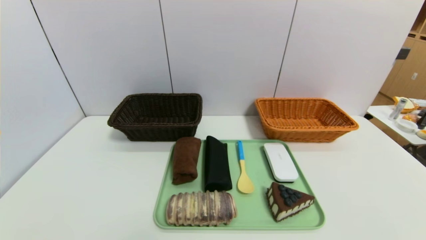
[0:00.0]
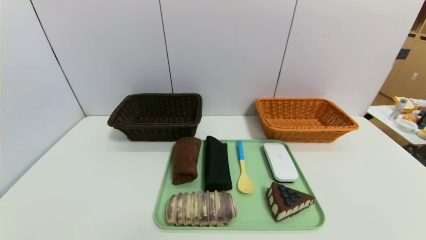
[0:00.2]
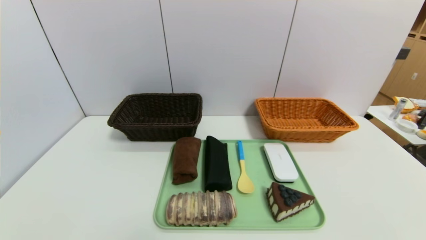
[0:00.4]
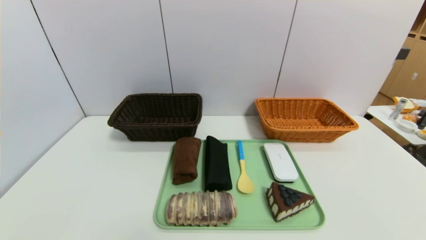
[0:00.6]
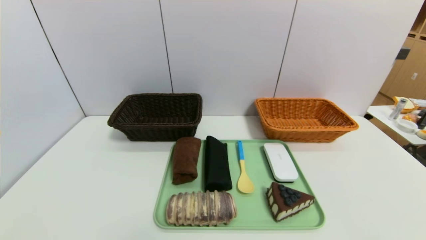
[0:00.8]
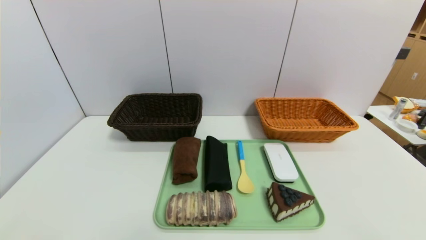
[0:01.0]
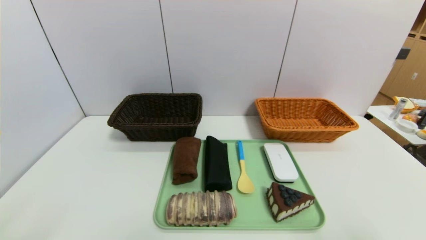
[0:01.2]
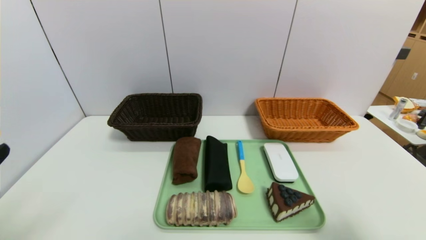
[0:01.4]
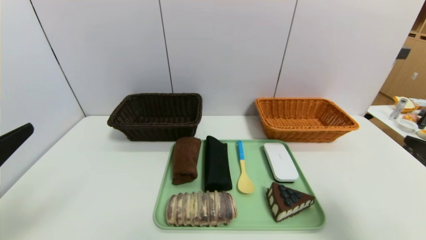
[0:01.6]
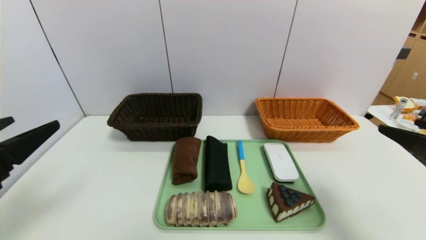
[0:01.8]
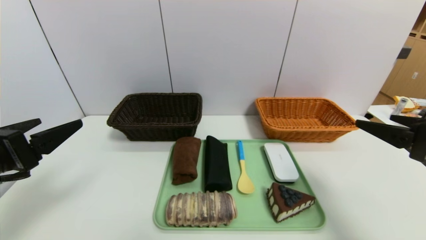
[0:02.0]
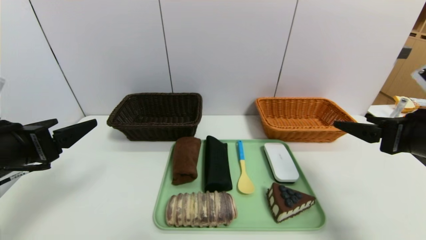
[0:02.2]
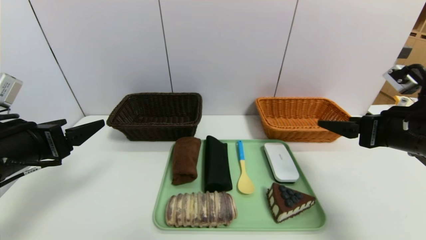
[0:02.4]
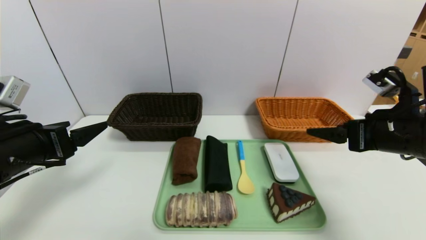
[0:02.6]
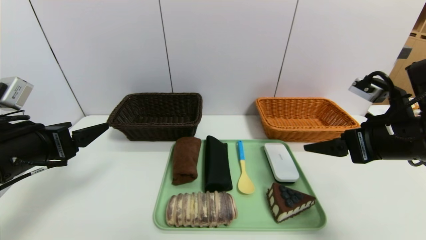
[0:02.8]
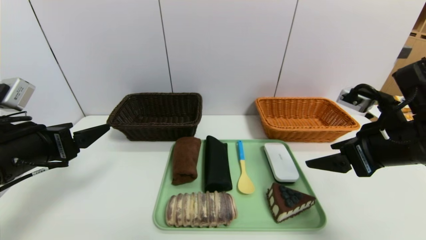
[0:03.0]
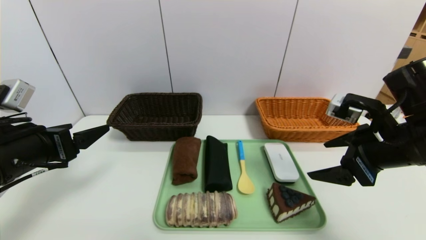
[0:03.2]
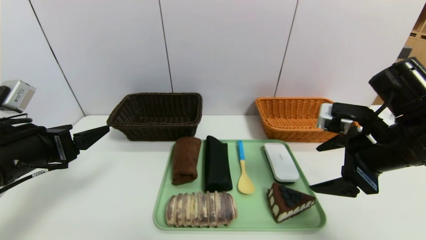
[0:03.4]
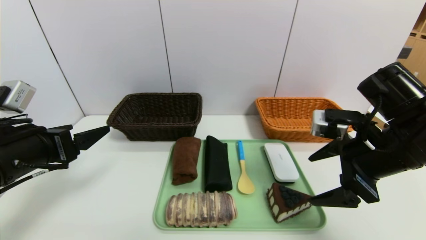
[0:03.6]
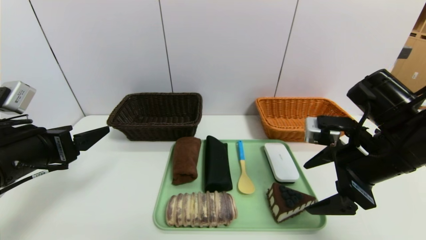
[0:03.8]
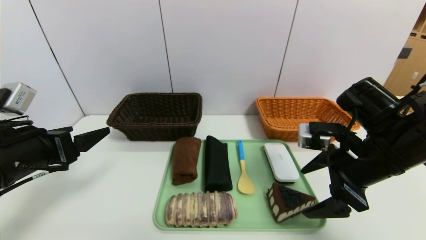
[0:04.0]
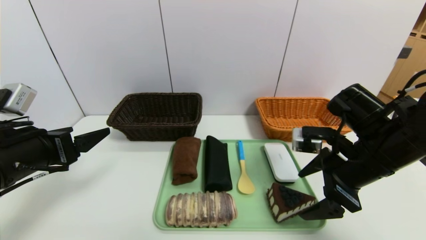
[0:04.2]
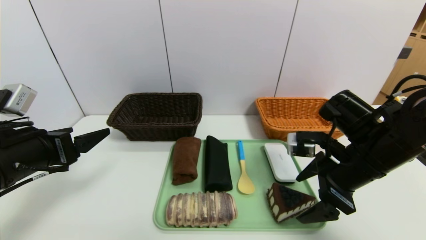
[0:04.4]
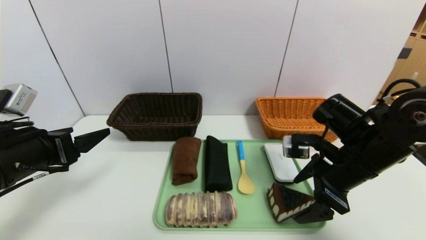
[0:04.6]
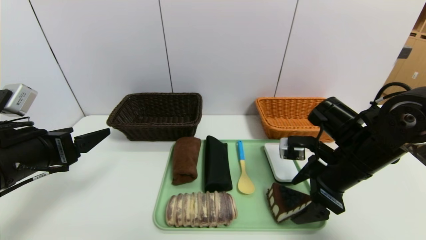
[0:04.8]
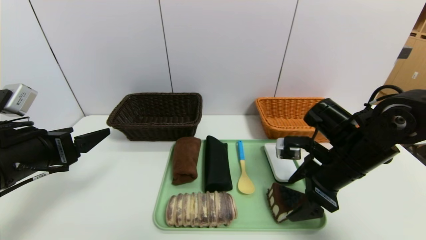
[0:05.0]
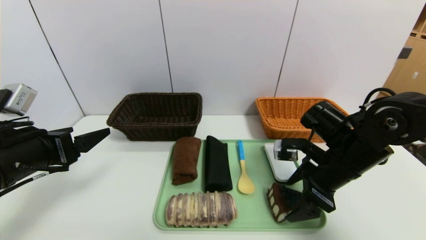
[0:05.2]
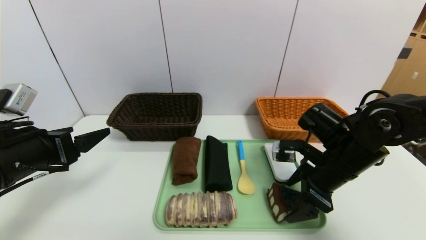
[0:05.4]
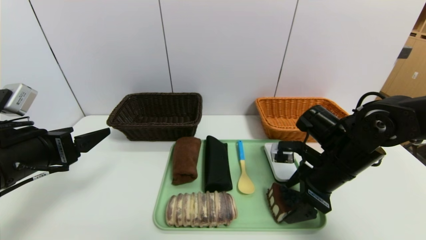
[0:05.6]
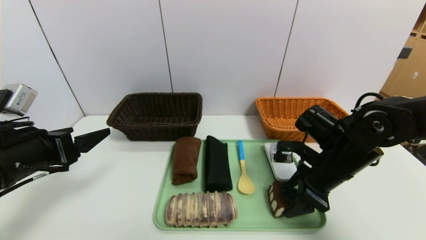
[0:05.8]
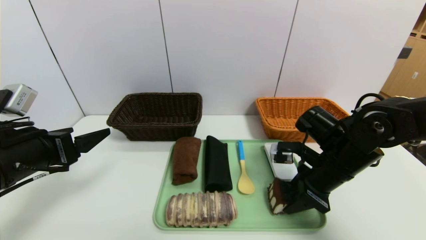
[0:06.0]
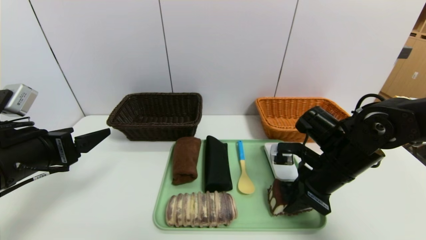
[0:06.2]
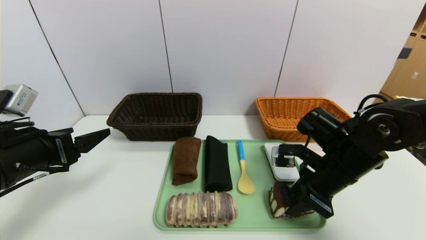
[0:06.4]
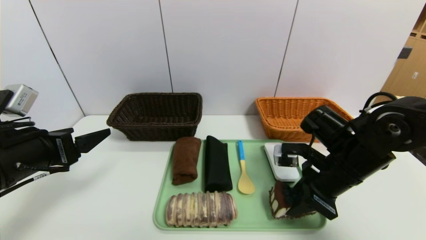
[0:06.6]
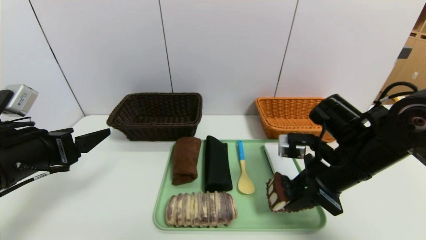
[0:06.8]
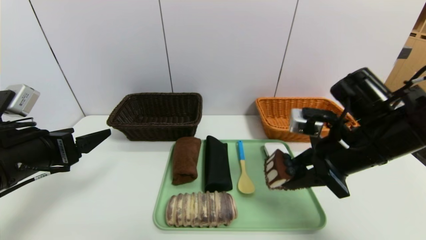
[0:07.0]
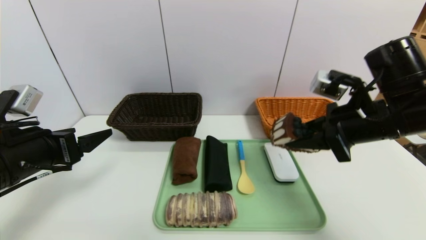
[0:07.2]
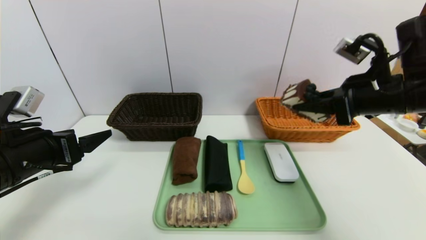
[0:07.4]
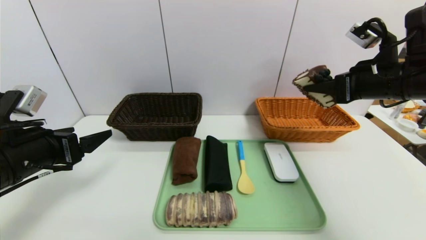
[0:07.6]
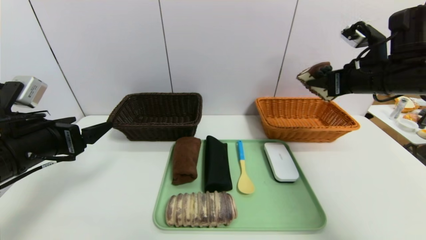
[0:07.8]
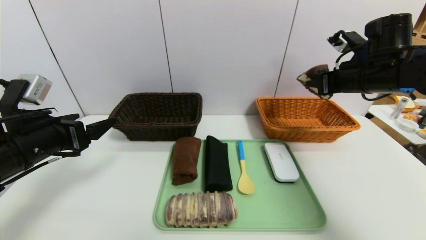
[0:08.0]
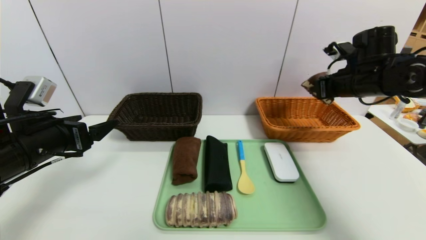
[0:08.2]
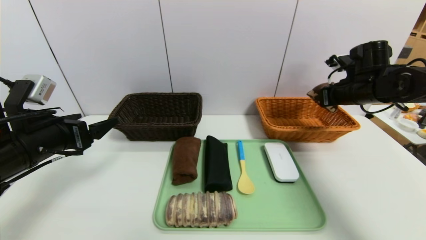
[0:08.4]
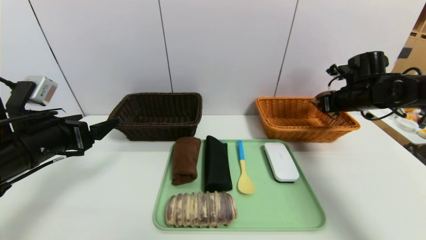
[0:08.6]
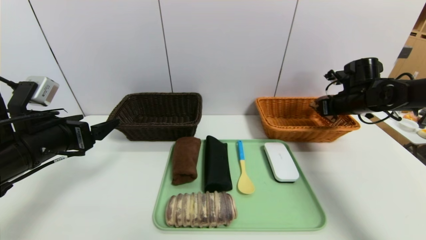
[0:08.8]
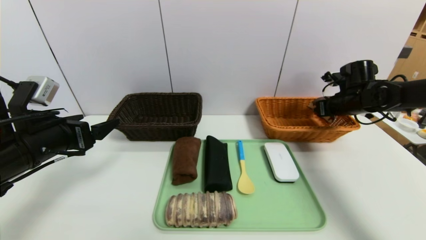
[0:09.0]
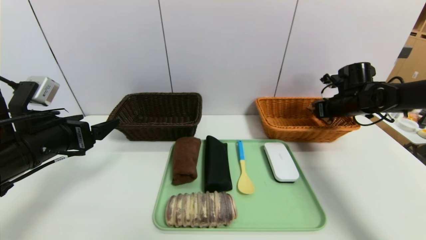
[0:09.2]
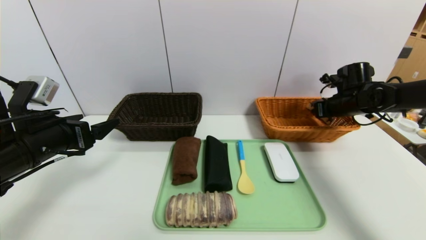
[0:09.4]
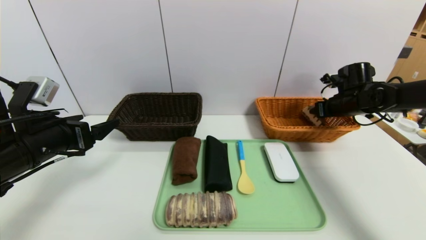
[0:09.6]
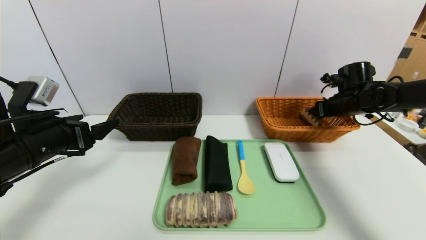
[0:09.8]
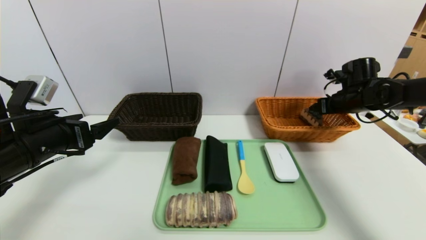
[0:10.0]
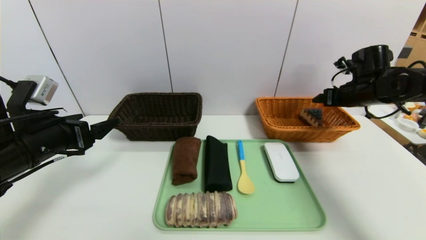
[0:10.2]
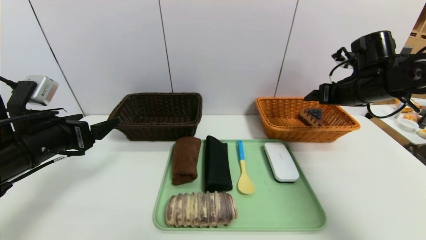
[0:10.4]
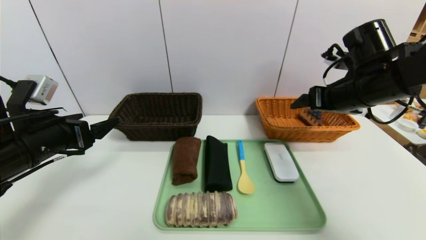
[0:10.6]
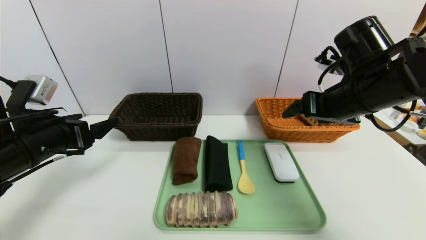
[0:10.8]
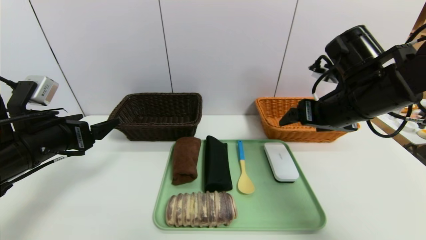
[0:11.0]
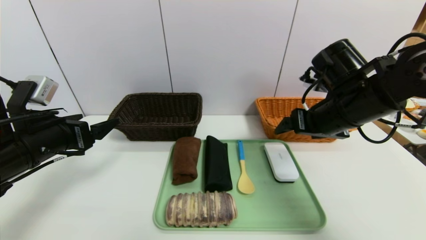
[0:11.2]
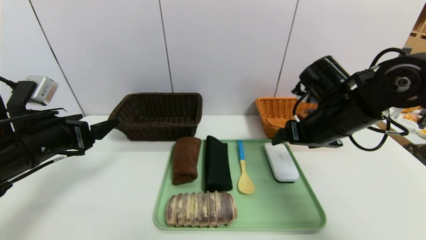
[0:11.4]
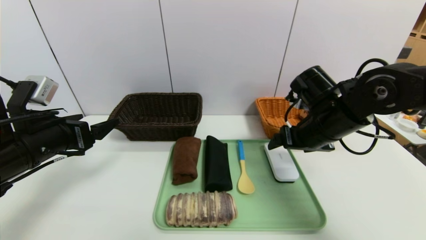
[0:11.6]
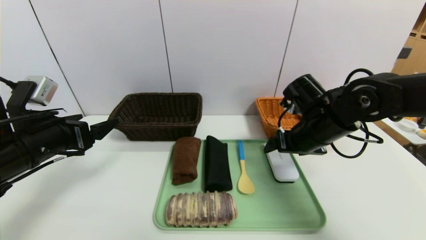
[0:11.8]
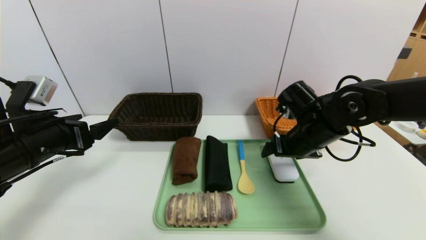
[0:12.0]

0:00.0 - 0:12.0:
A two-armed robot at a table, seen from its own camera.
Task of the whole recording: place the food in the right basket with the right gripper, and place the non food items in the left basket with the left gripper.
Step, 0:00.0 - 0:10.0: Grasp the triangle cake and put it in the right basket.
0:00.0 - 0:01.6: The grippers both shift upward and forward by roughly 20 cm.
0:01.6 - 0:03.0: The left gripper travels forward by about 10 cm. The right gripper moves forward and to the left, roughly 15 cm.
0:03.0 - 0:04.4: The right gripper shifts by roughly 5 cm.
0:04.4 - 0:06.0: The right gripper closes.
0:06.0 - 0:07.6: The right gripper travels upward and to the right by about 15 cm.
0:07.6 - 0:09.0: The right gripper travels forward, downward and to the right by approximately 20 cm.
0:09.0 - 0:10.4: The right gripper goes about 10 cm backward, upward and to the left, and opens up.
0:10.4 - 0:12.0: The right gripper heads to the left and downward, covering some 15 cm.

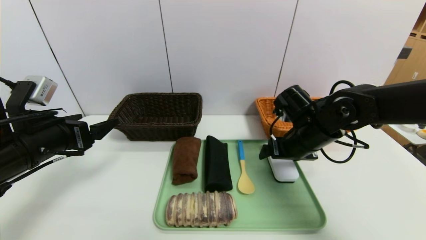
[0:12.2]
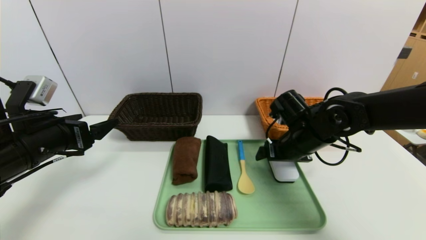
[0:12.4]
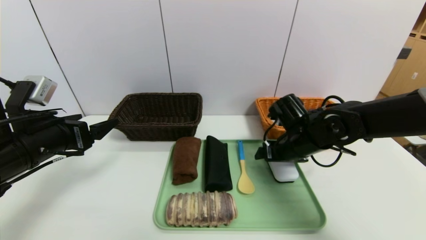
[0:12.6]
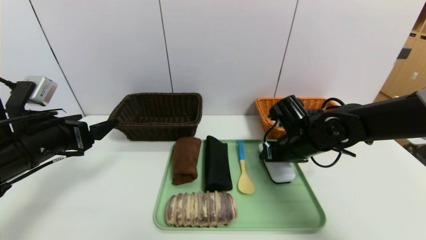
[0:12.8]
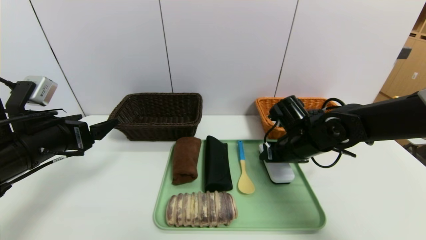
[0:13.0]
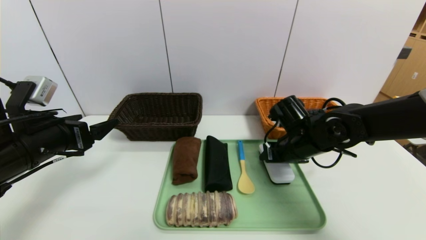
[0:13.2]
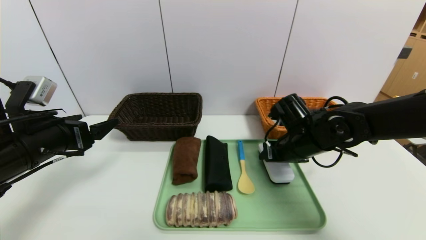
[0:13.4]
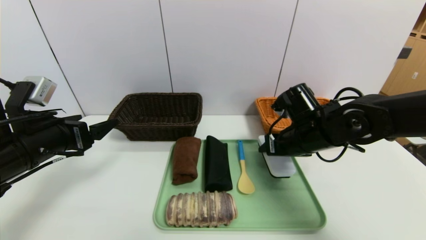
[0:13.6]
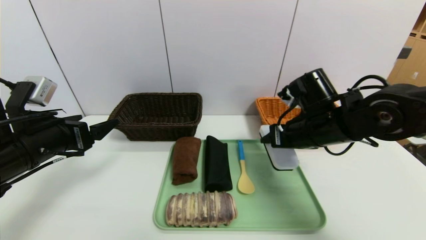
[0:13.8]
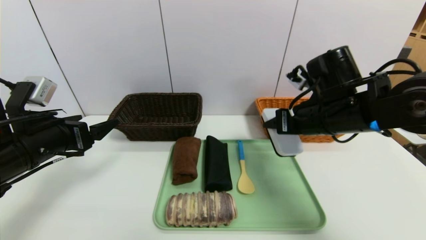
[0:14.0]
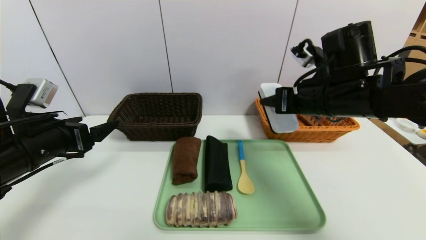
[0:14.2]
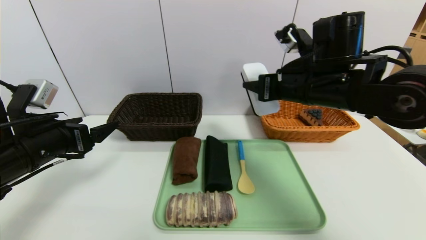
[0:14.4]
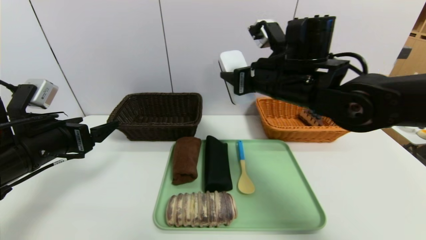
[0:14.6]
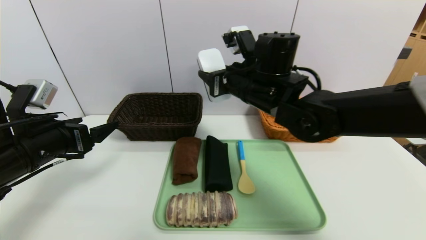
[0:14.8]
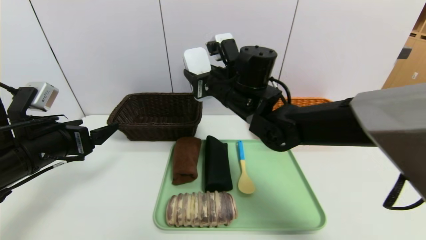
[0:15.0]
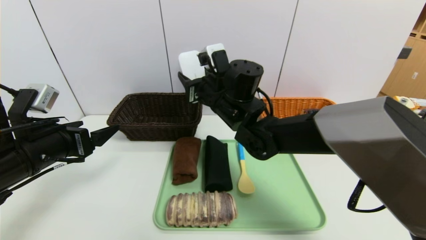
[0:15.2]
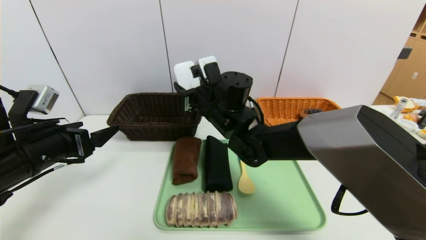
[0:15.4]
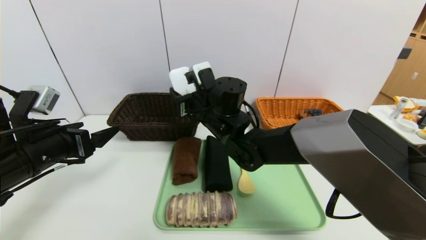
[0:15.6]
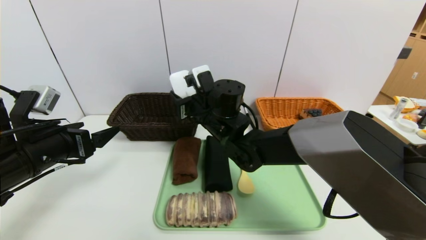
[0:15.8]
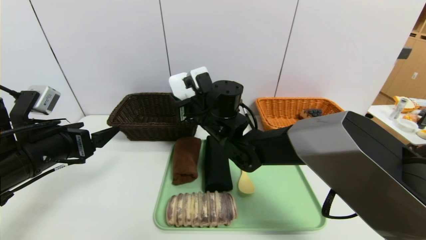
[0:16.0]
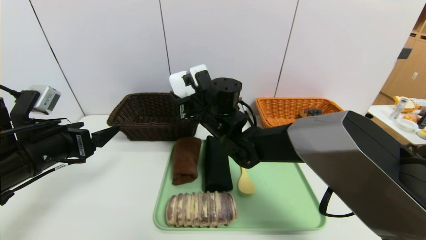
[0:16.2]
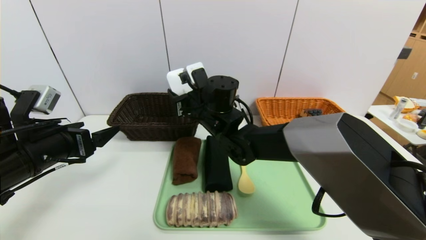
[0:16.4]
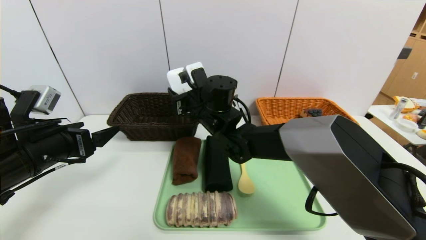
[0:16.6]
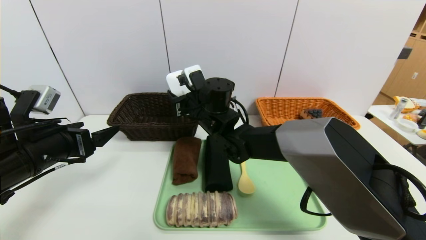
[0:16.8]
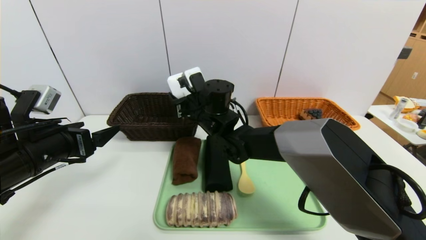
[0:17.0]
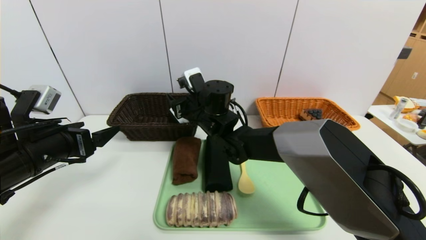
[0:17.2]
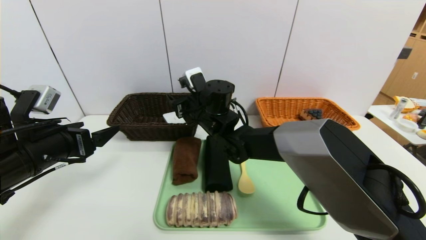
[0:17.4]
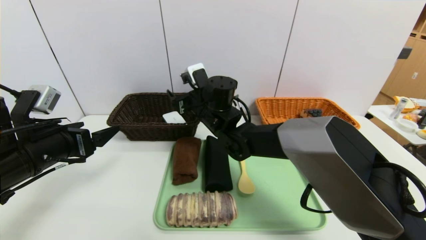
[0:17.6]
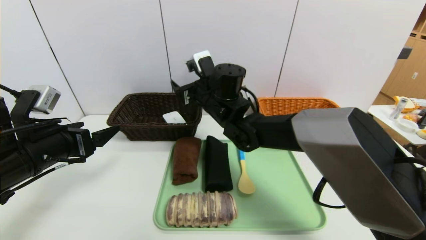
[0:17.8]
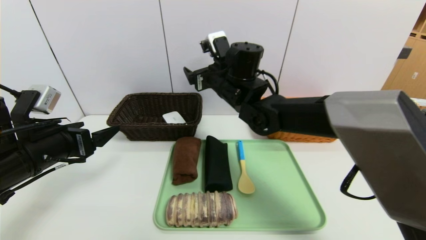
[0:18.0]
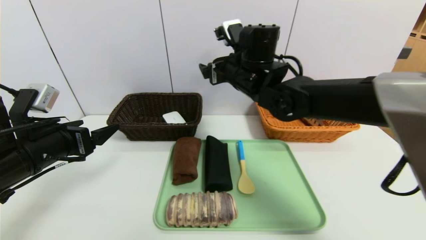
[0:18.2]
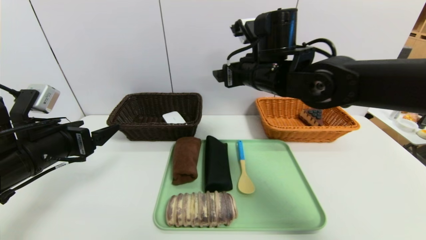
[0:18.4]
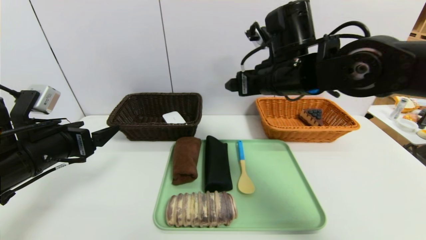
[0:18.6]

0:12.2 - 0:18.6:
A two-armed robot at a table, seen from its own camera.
Task of the whole recording: place the food in the right basket with the right gripper, and place the non food items in the left basket with the left gripper.
0:12.2 - 0:13.8: The right gripper closes up.
0:13.8 - 0:15.4: The right gripper moves to the left, roughly 20 cm.
0:15.4 - 0:17.0: The grippers move only a little.
0:17.0 - 0:18.6: The right gripper travels to the right, upward and backward by some 20 cm, and opens its fingers.
